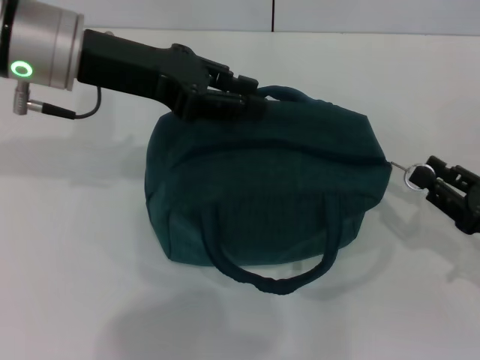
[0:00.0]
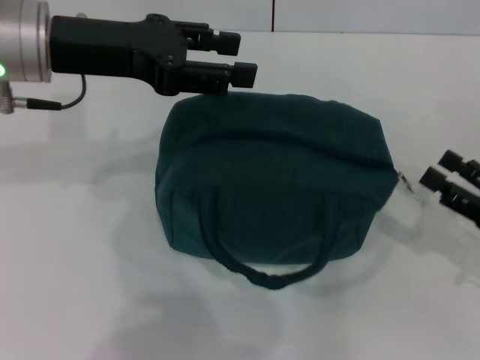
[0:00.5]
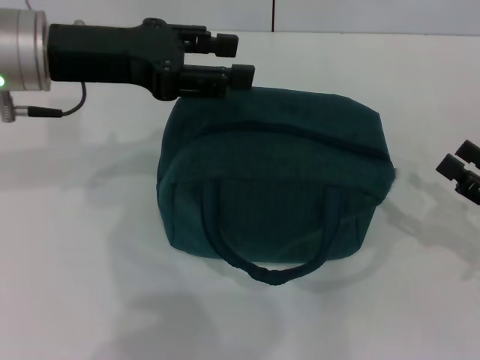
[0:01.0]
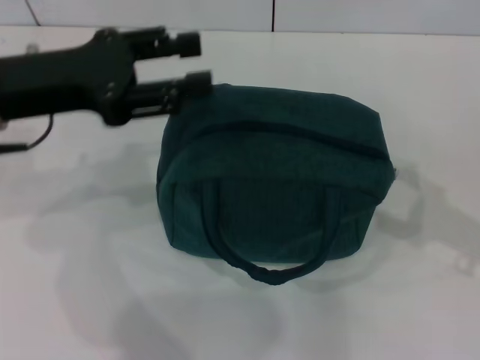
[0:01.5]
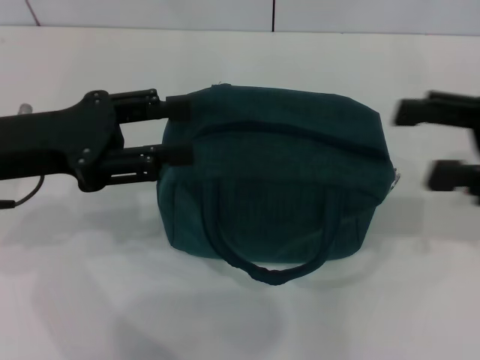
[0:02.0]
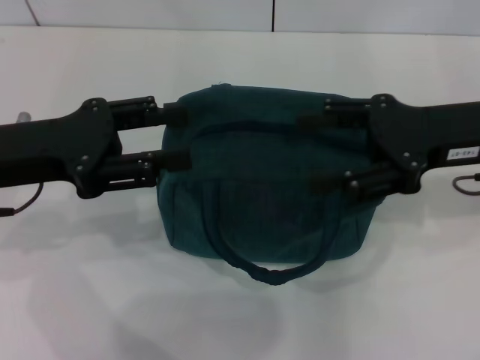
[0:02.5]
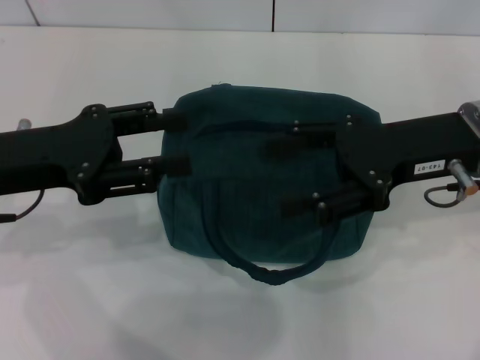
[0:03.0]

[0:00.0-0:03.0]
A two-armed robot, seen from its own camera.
0:00.0 to 0:01.5: The right gripper travels upward by some 10 cm, and opens up. The left gripper heads to the left, covering some 5 cm, and opens up.
0:01.5 to 0:03.0: The right gripper moves to the left and forward, roughly 15 cm, while the left gripper moves roughly 5 cm.
